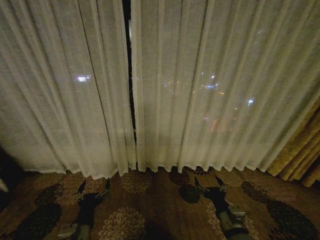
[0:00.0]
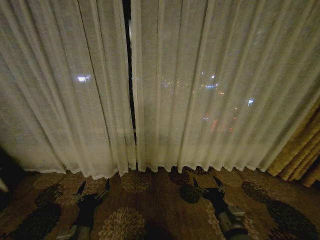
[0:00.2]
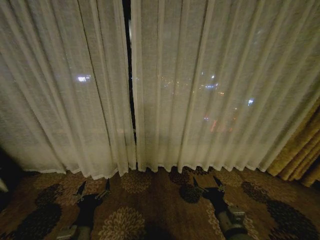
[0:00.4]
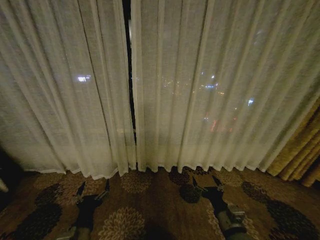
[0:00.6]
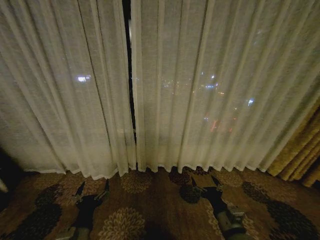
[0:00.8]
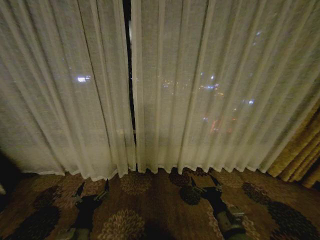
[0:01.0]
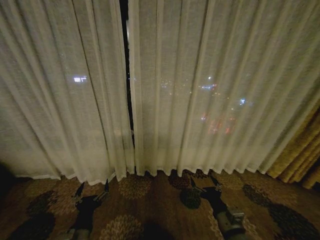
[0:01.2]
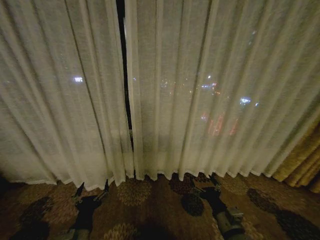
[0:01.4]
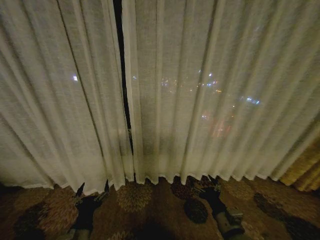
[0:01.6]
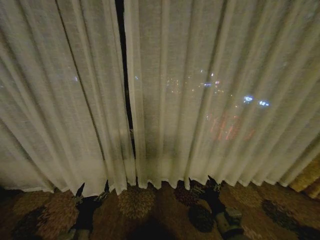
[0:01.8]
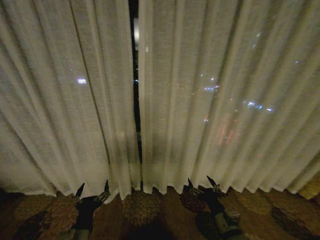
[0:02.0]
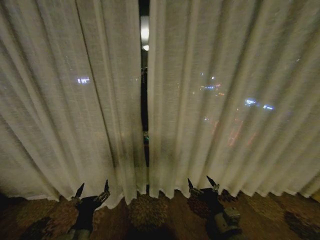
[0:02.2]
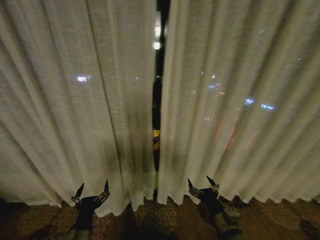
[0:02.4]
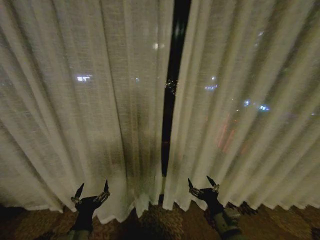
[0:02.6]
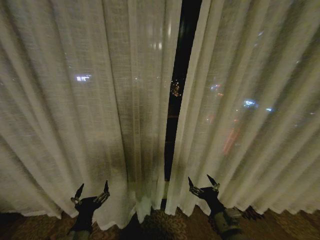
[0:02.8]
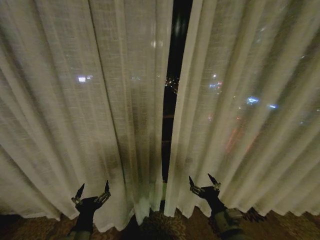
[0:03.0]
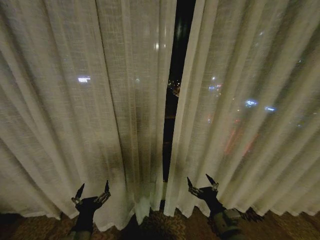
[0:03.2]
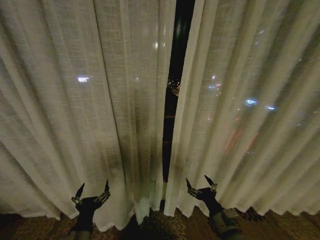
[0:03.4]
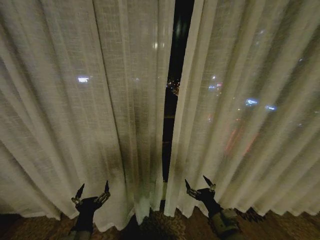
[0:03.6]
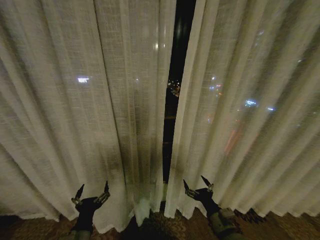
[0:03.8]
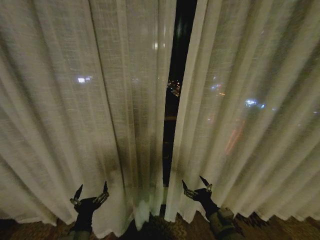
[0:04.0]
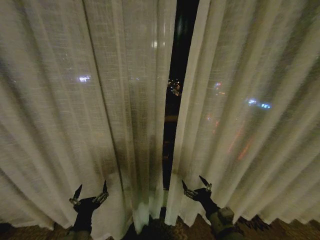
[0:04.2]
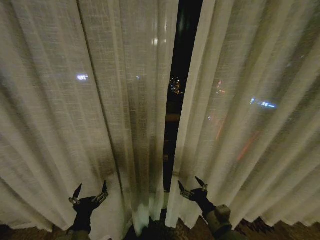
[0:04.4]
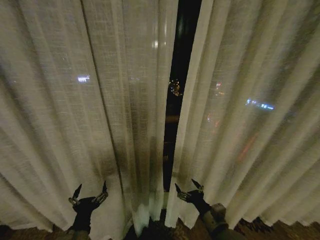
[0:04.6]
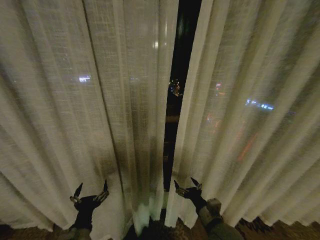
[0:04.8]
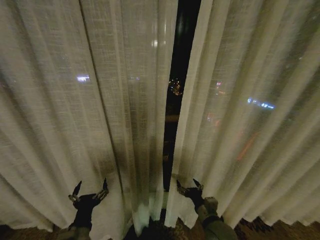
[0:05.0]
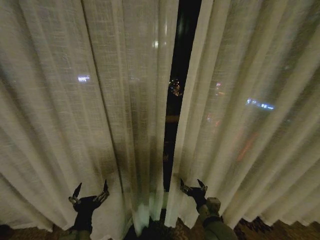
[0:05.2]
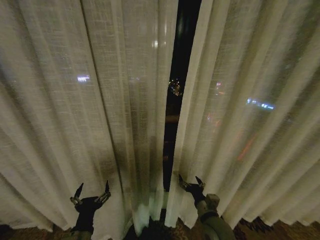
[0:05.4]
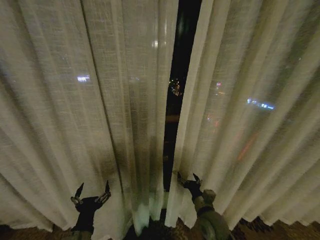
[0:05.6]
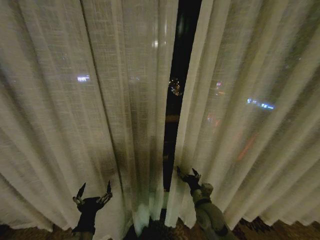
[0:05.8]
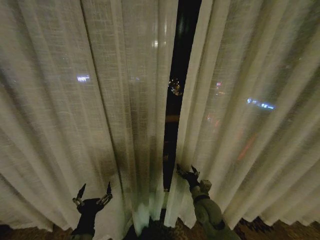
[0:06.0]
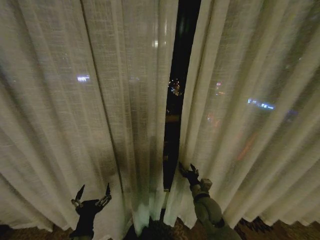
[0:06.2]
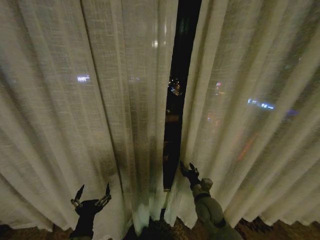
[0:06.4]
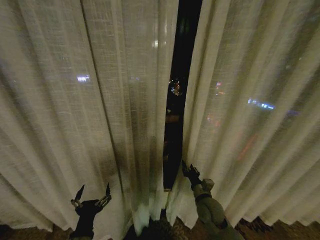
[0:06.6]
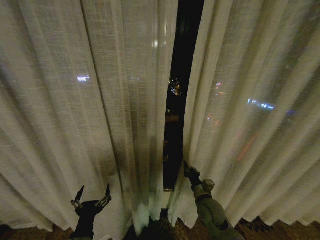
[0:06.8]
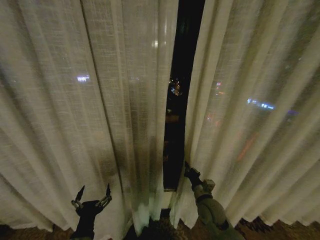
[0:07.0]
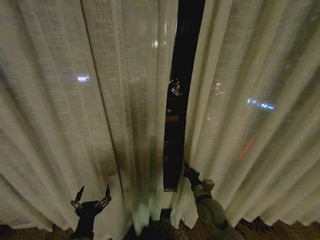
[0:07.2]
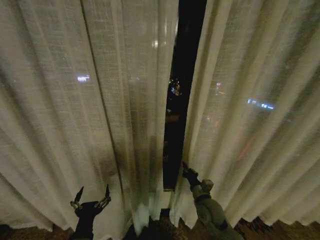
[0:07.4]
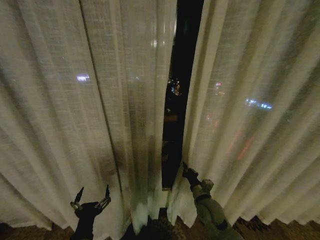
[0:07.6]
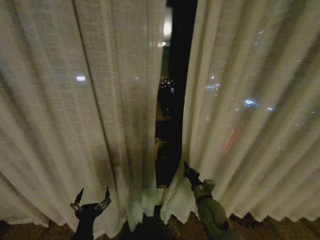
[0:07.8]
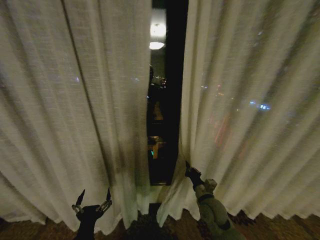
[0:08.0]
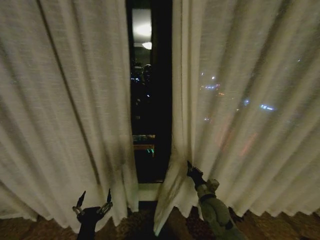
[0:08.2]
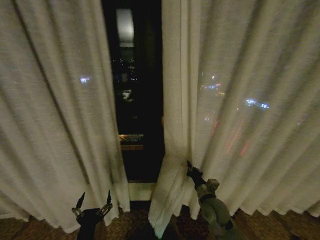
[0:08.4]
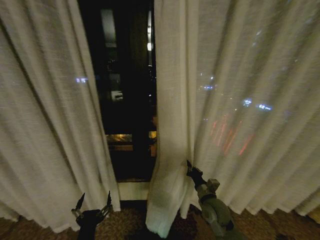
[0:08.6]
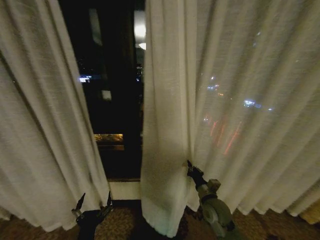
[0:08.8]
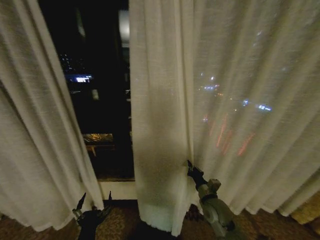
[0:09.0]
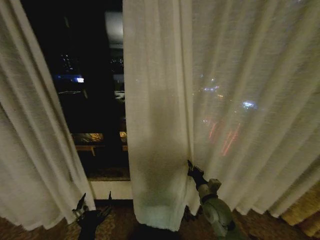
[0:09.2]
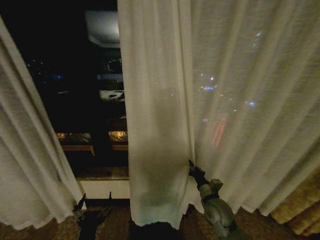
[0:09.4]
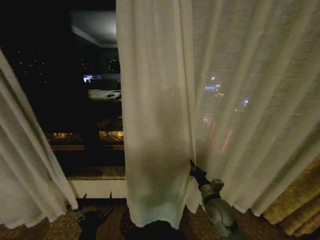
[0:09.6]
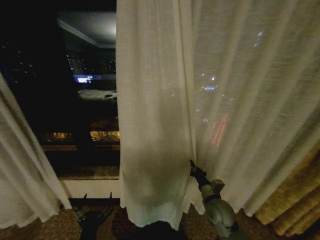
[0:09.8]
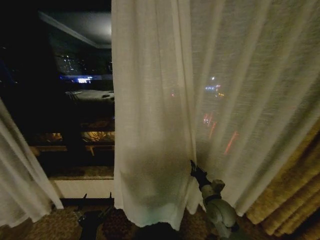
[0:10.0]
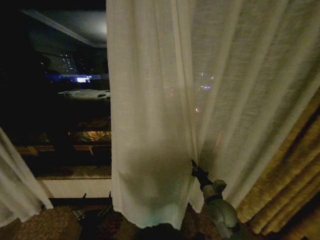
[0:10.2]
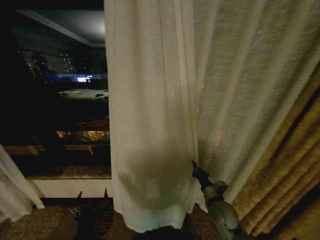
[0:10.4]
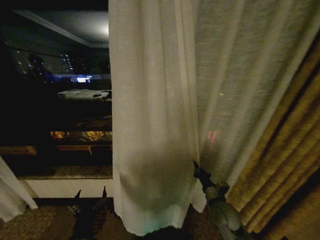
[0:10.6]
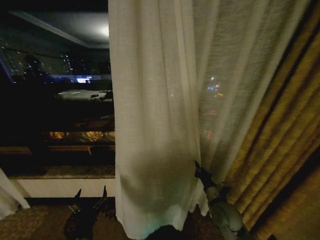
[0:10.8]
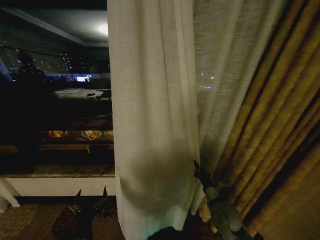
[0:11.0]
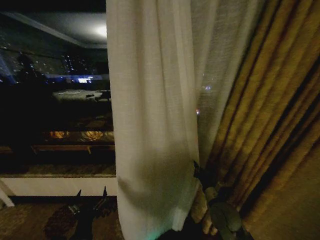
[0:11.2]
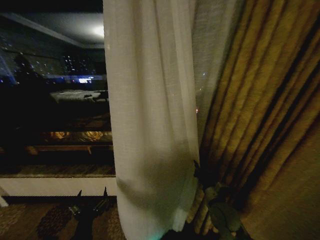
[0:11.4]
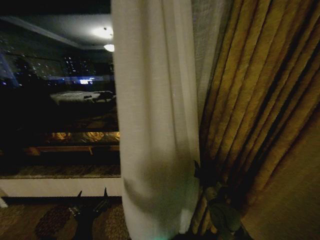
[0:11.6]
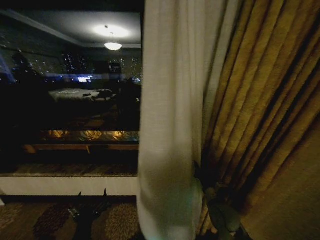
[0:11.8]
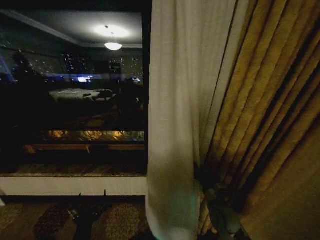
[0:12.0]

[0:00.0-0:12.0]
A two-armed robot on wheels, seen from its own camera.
Task of the whole recording: Open the curtains by pulling them apart, changing their state from closed to fully open.
0:04.4 to 0:06.0: The right gripper heads forward, covering roughly 10 cm.
0:06.0 to 0:07.6: The right gripper closes.

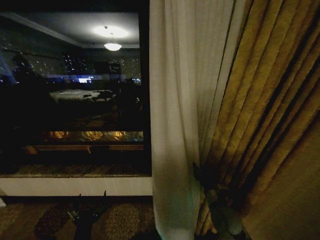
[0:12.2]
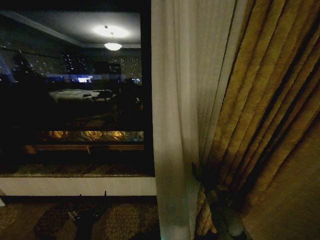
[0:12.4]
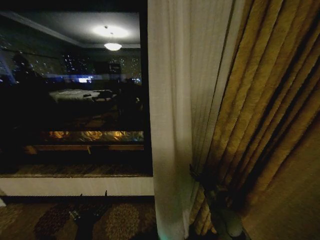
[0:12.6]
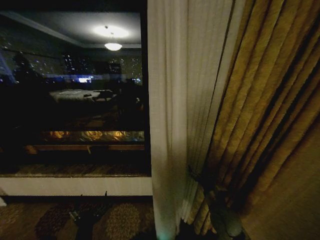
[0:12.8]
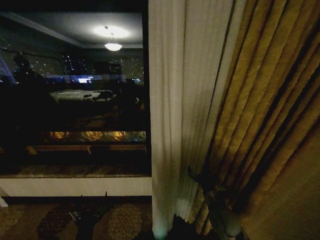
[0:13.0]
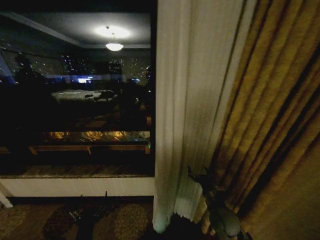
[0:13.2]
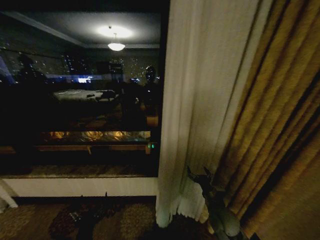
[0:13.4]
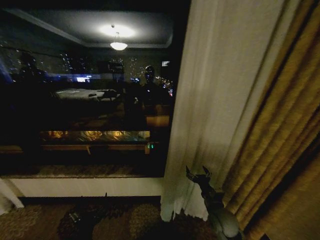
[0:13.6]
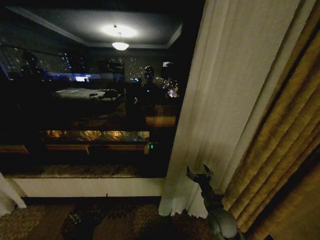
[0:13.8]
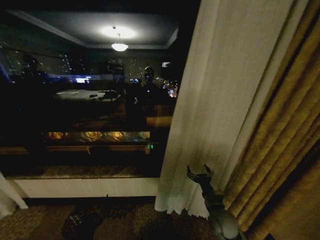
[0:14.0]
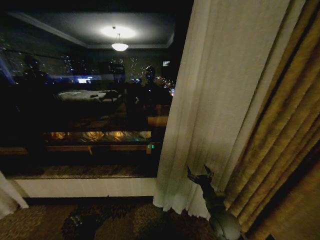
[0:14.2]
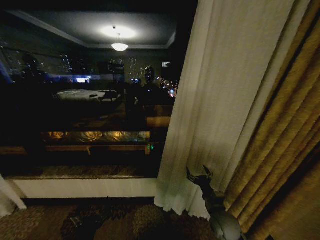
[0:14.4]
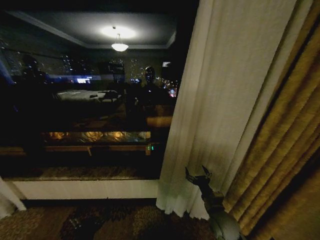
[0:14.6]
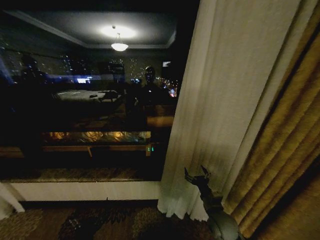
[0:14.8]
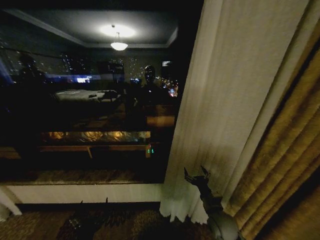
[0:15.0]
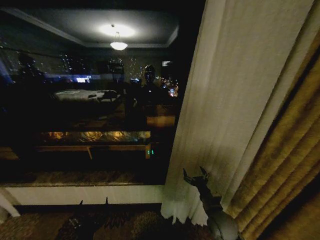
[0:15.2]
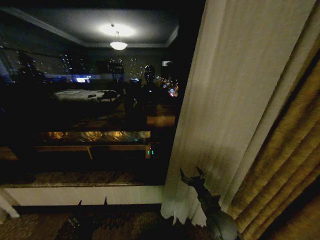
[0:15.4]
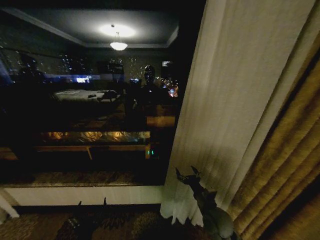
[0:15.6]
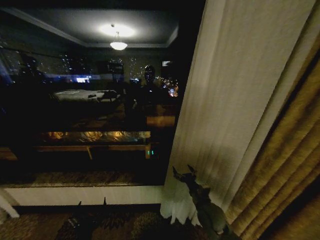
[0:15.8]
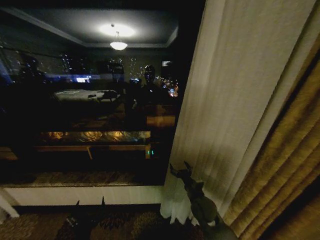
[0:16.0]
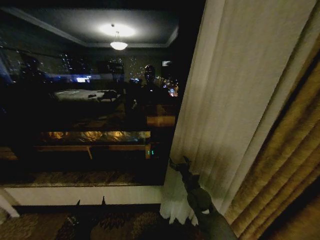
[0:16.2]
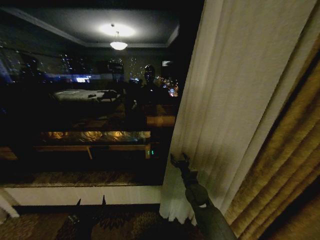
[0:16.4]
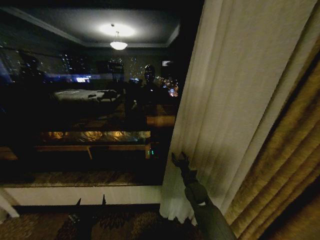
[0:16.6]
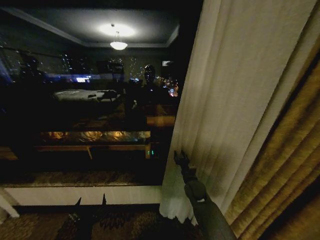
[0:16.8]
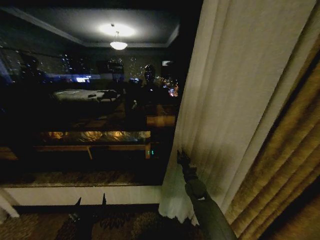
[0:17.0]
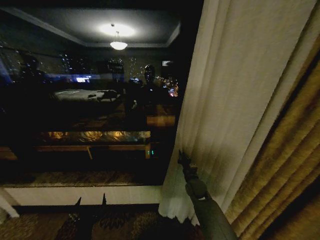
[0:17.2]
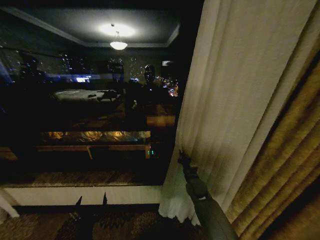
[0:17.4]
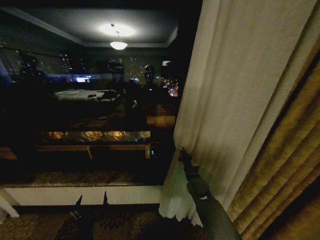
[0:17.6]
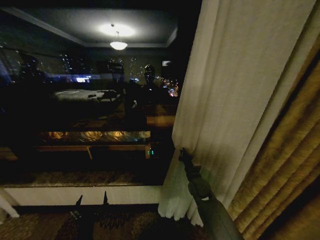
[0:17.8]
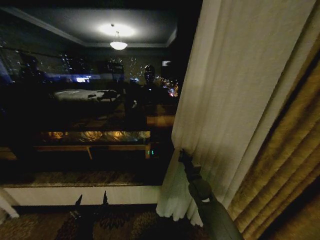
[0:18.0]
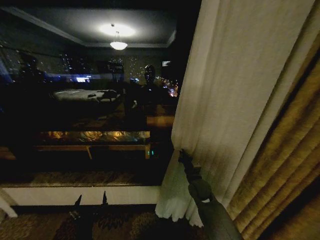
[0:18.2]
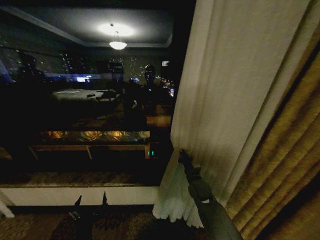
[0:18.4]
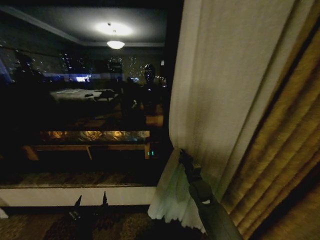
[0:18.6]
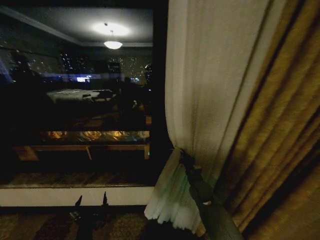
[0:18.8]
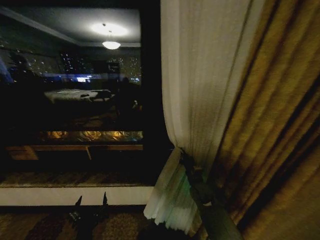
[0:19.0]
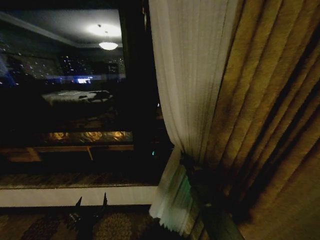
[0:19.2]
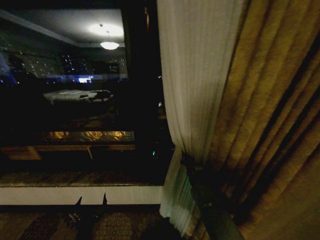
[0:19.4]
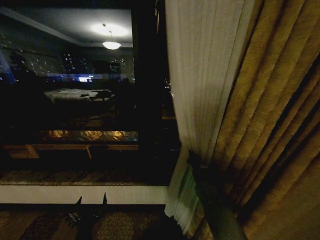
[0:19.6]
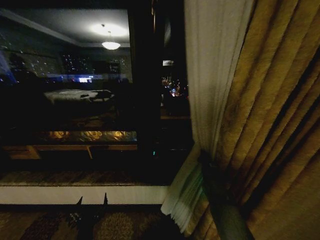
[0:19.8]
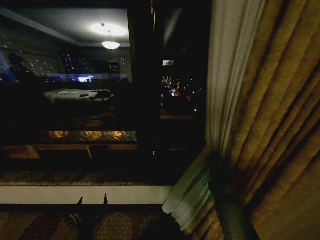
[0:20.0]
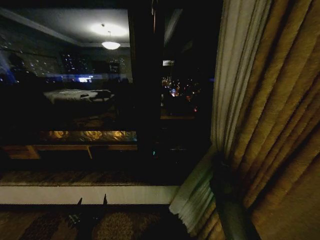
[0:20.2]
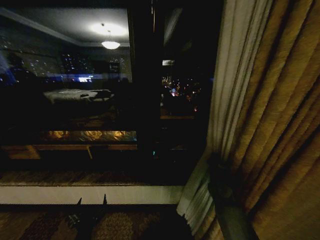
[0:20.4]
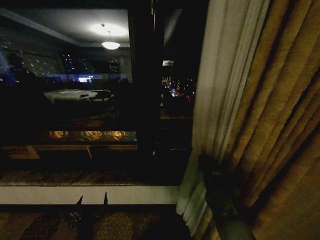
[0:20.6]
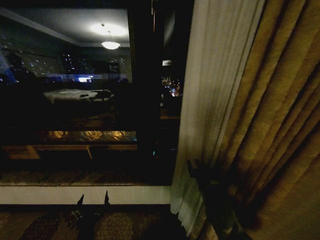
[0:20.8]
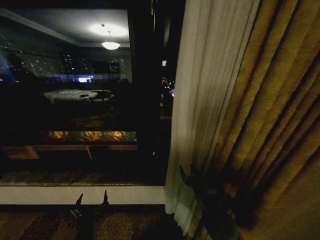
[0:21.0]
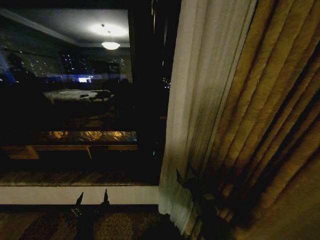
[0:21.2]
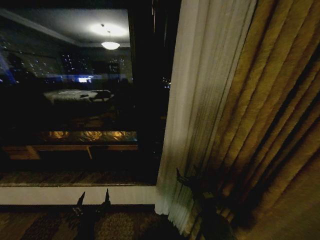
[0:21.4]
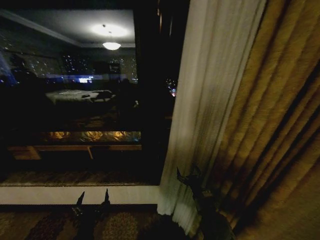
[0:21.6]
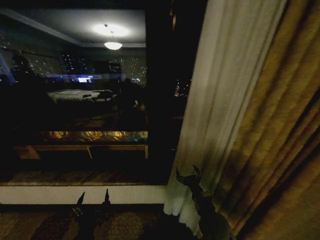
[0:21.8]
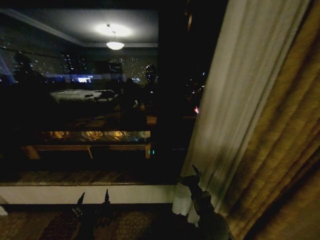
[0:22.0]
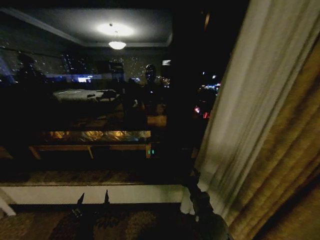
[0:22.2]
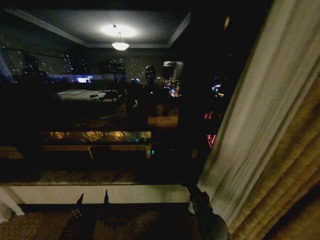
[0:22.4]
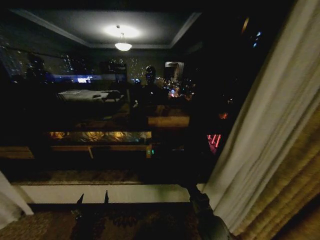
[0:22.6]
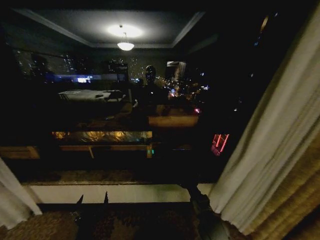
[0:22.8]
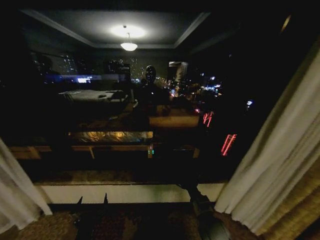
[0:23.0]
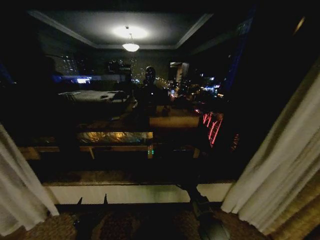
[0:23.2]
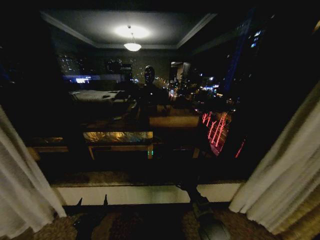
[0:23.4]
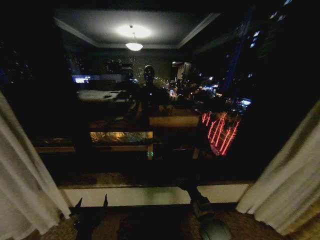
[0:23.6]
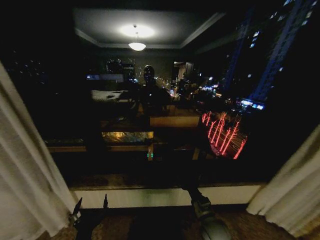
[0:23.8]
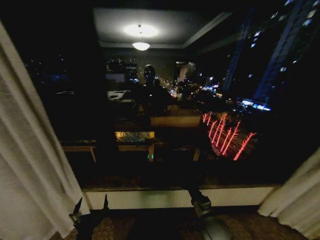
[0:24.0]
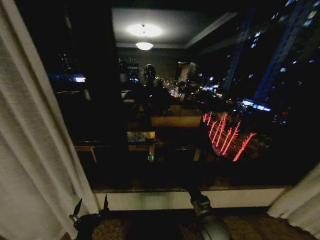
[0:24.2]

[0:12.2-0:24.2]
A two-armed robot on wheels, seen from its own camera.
Task of the whole recording: Open the curtains by pulling them apart, changing their state from closed to fully open.
0:12.2 to 0:13.8: The right gripper opens up.
0:13.8 to 0:15.2: The grippers move only a little.
0:15.2 to 0:16.6: The right gripper goes approximately 15 cm forward and to the left.
0:16.6 to 0:18.2: The right gripper closes its fingers.
0:18.2 to 0:19.8: The right gripper moves to the right, some 10 cm.
0:19.8 to 0:21.2: The right gripper shifts roughly 20 cm backward and to the left, and opens its fingers.
